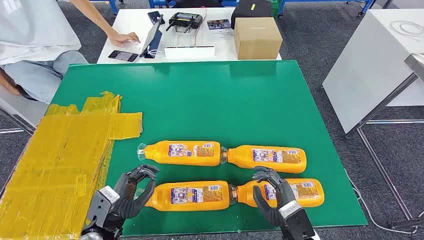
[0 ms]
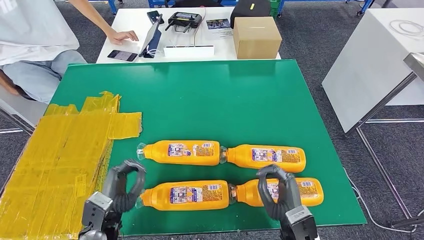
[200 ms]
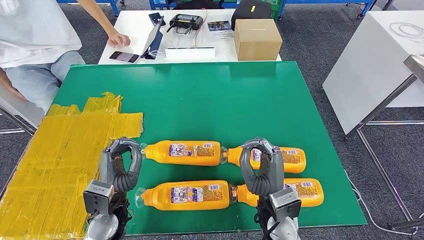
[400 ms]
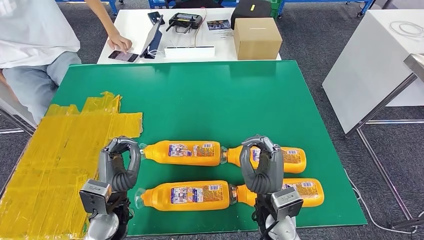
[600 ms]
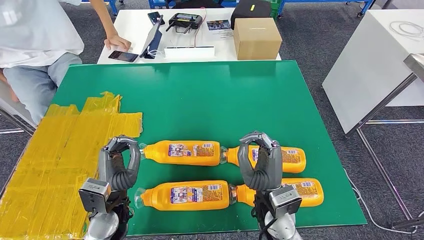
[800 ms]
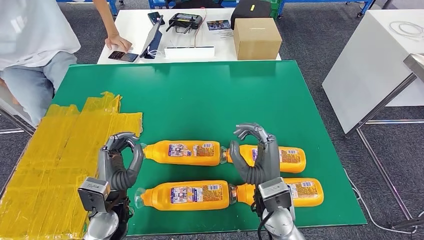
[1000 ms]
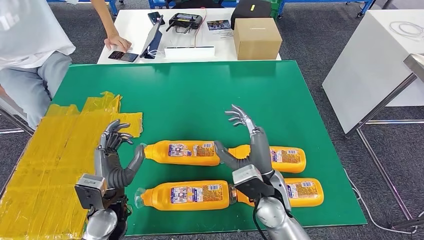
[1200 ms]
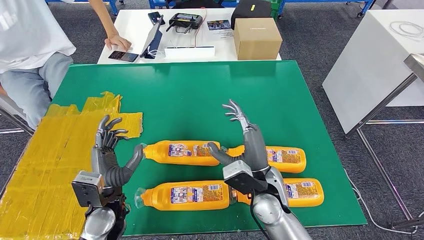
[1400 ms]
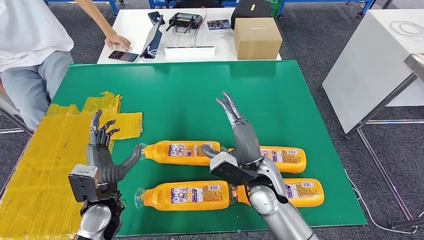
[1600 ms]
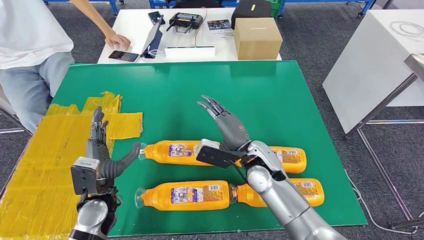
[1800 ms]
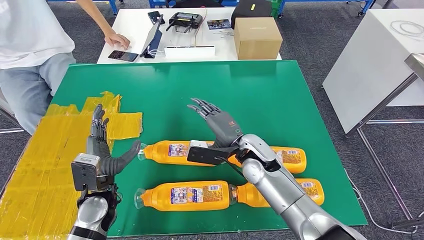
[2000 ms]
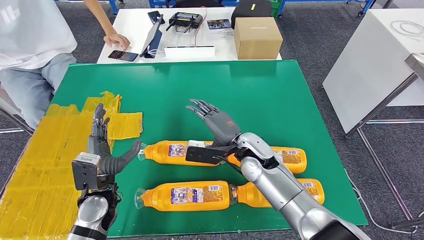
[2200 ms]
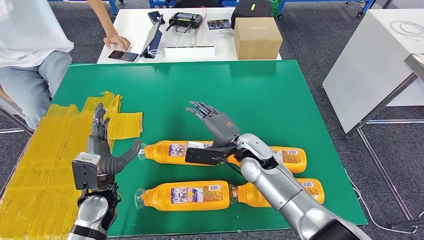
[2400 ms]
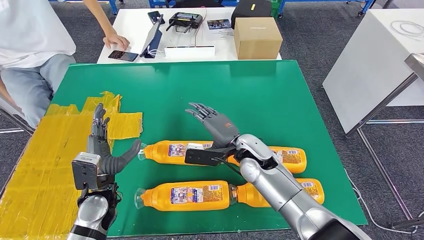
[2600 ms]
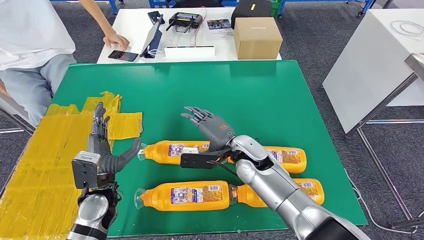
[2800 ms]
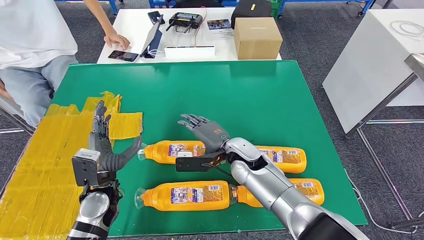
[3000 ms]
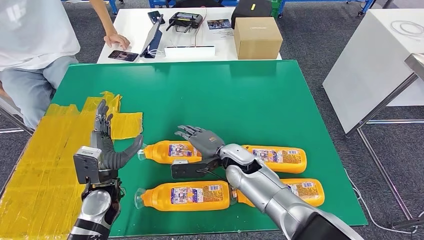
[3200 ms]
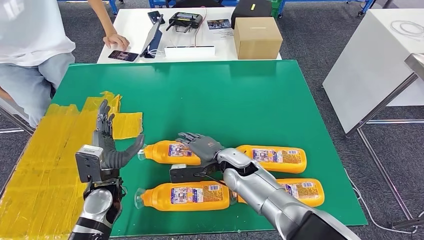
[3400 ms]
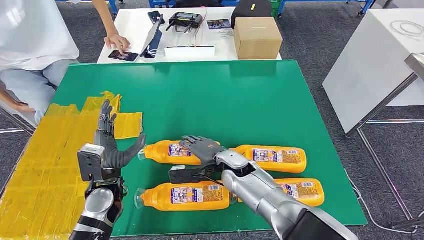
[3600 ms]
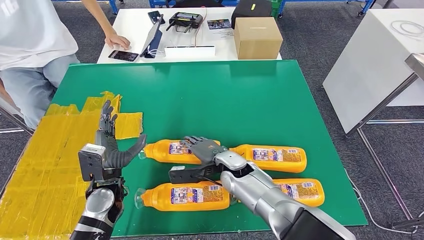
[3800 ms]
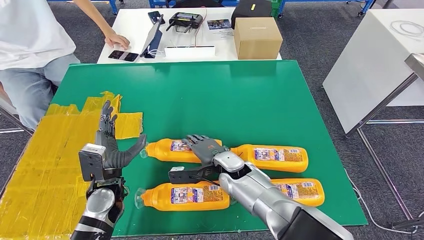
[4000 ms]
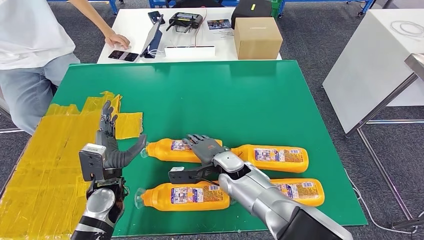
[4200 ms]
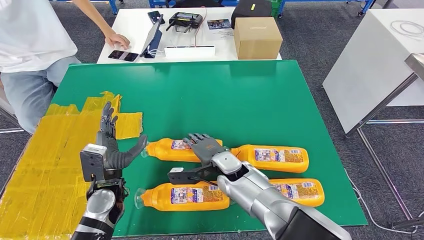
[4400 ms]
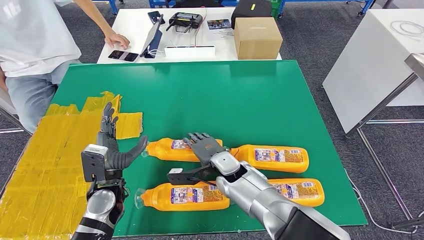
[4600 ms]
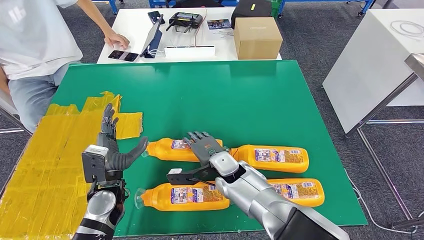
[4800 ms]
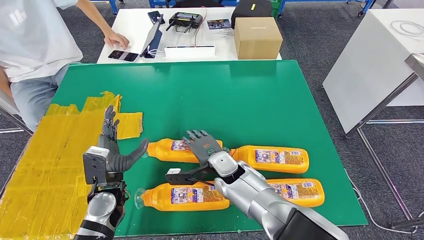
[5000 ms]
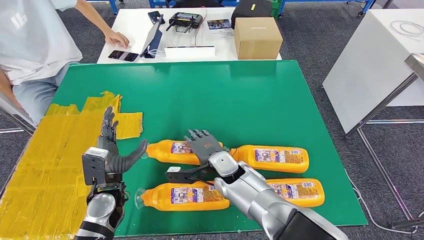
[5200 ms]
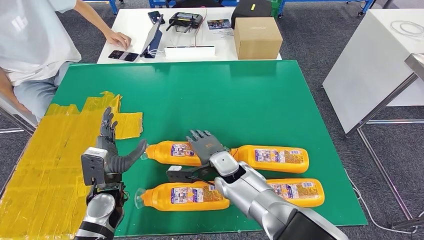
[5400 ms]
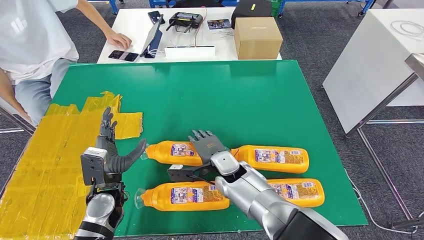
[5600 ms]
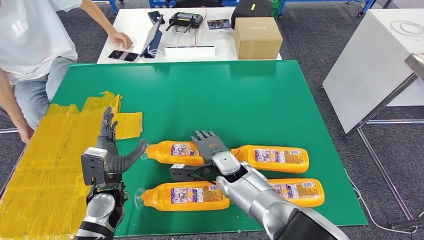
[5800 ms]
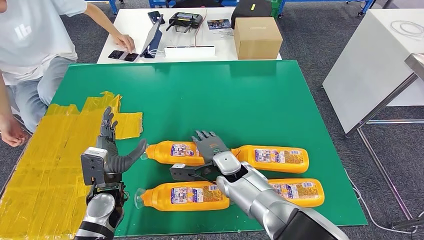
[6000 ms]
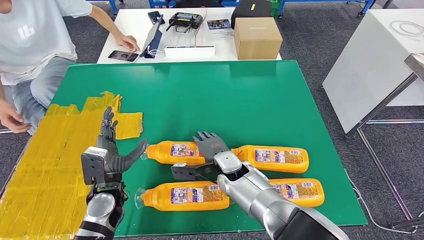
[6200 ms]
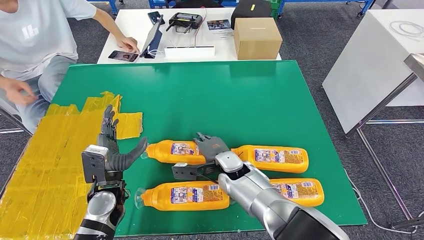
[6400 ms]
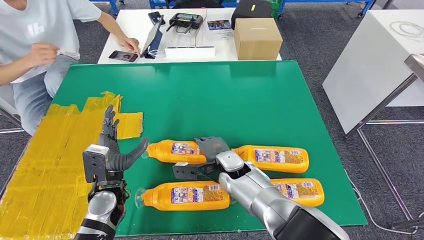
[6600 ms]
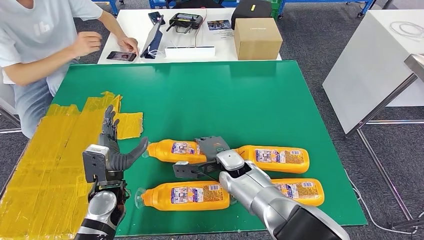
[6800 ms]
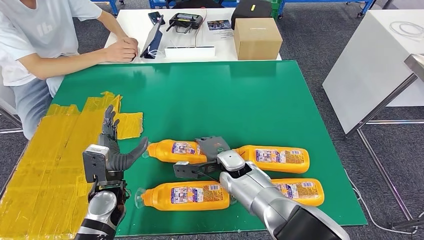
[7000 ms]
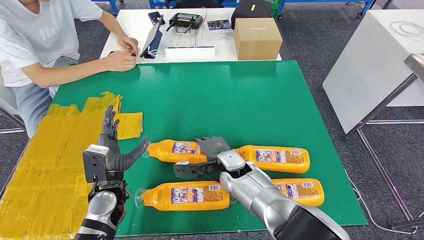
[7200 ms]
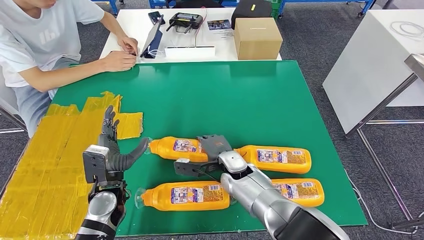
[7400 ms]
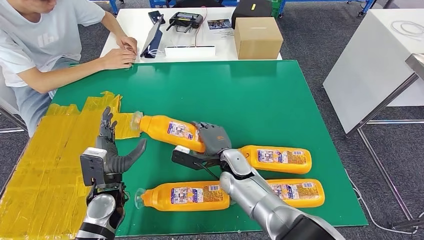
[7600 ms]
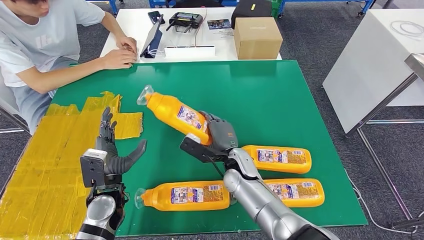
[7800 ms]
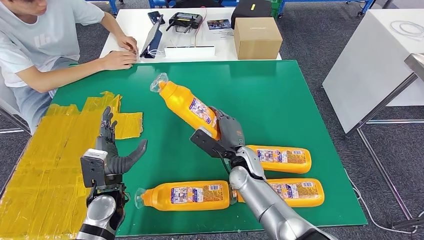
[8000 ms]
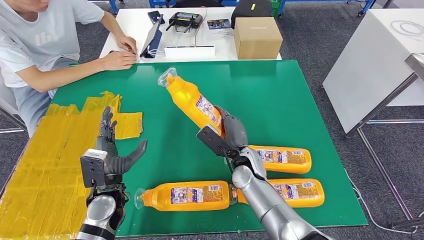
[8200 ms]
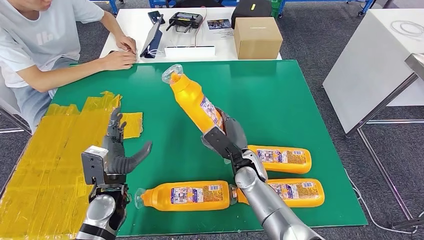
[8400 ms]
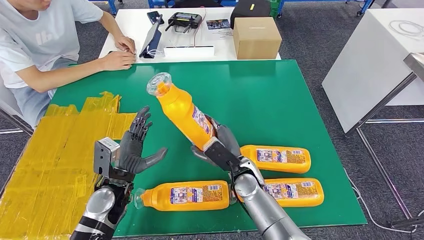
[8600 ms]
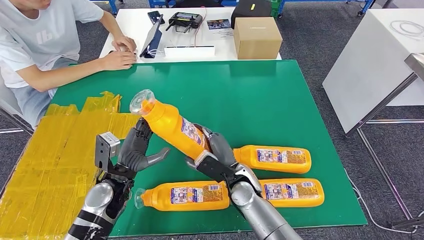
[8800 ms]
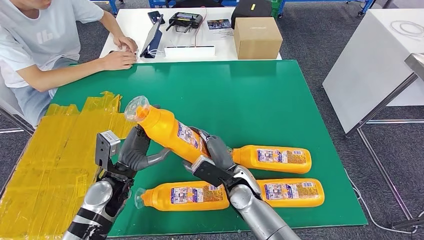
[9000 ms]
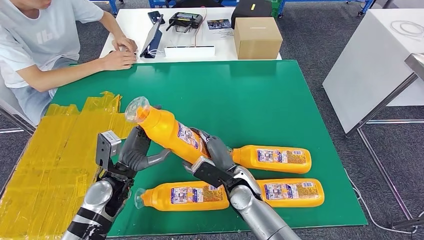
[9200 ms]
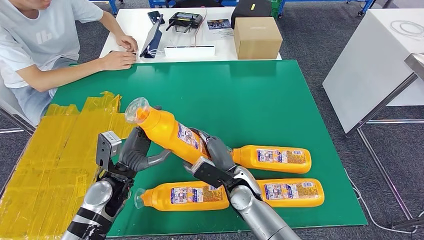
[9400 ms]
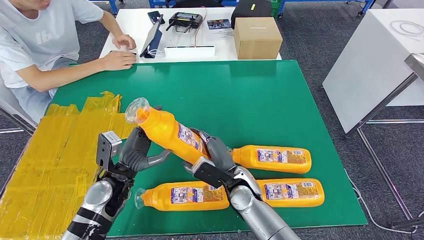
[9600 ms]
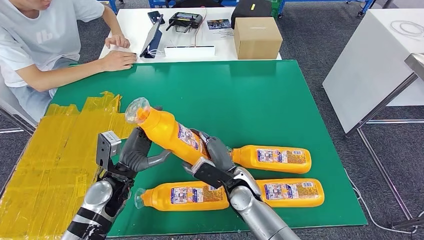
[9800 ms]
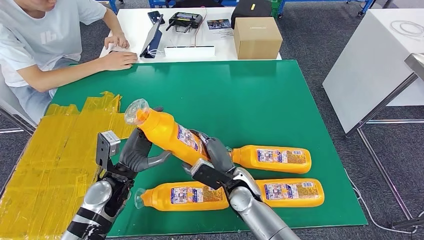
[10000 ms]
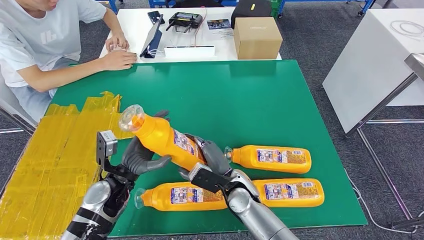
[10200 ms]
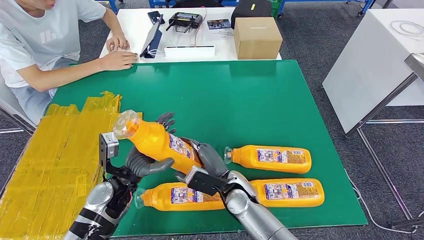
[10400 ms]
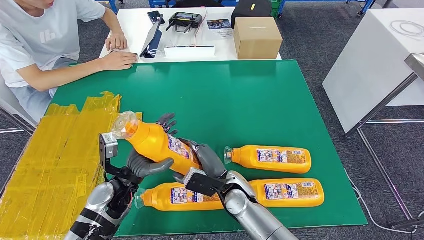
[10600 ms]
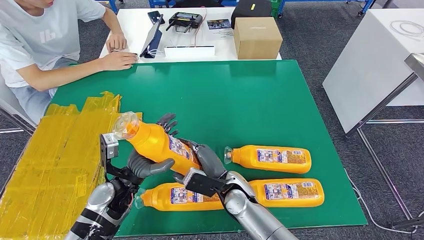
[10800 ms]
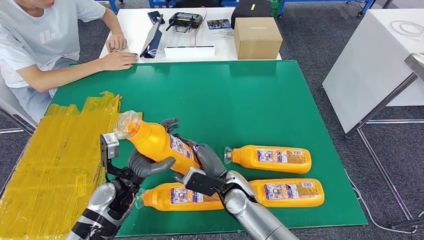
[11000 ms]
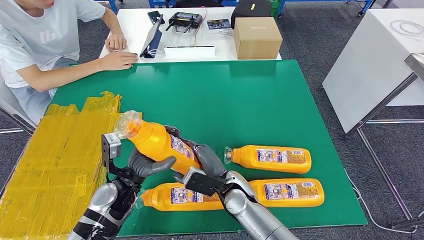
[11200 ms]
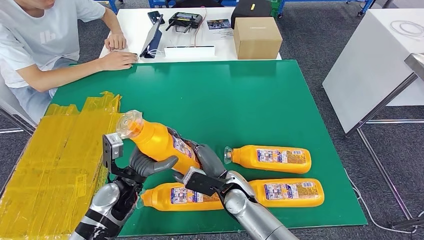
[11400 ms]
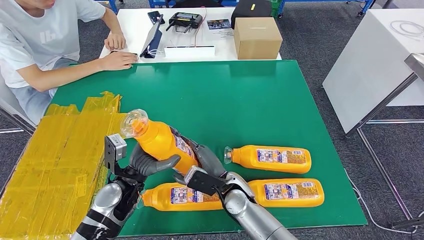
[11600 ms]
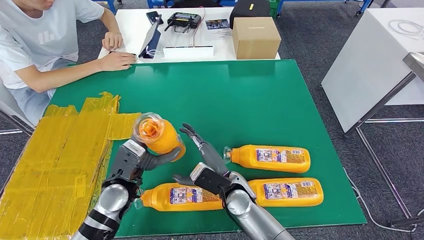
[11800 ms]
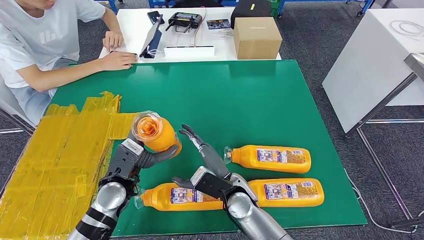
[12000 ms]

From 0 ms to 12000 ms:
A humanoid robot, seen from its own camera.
Step, from 0 ms to 8200 ms: Take the fast-moving consumer goods bottle from the table.
From 1600 ms to 3000 ms: The right hand goes about 10 cm forward.
From 3000 ms to 4400 ms: The right hand is displaced downward by about 5 cm.
From 4400 ms to 6000 ms: There are only small adjustments of the hands.
From 7600 ms to 9000 ms: The right hand shifts about 5 cm backward.
From 9000 ms to 10400 ms: The hands make only small movements.

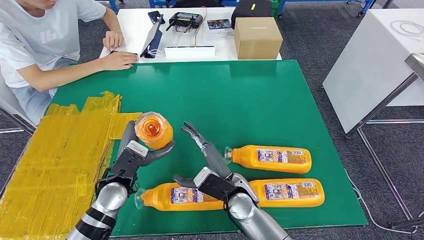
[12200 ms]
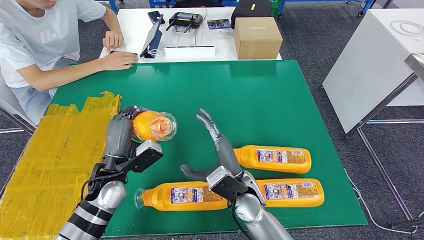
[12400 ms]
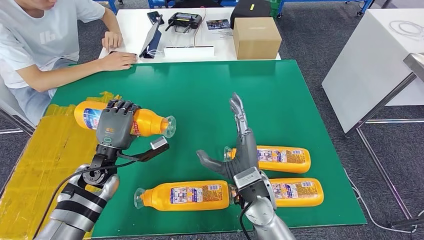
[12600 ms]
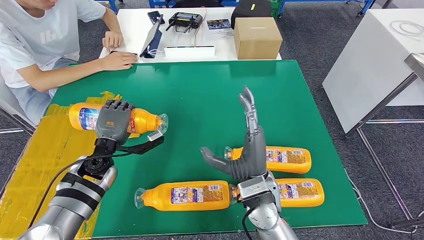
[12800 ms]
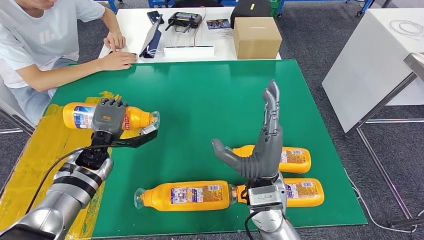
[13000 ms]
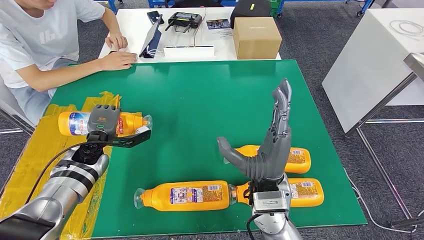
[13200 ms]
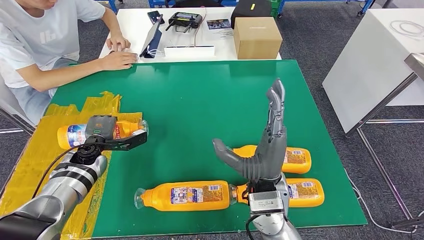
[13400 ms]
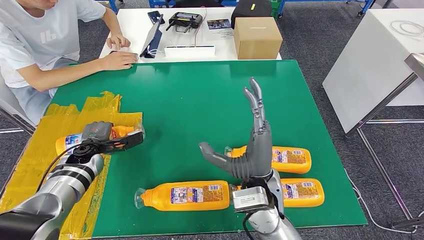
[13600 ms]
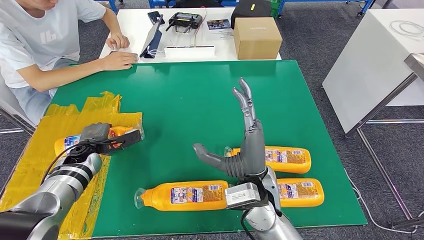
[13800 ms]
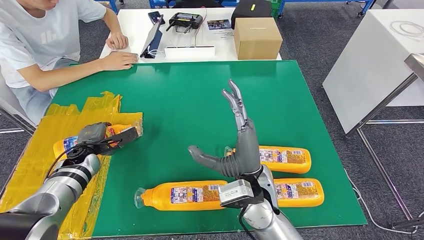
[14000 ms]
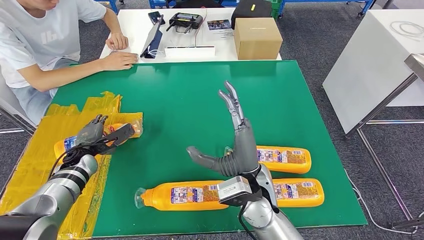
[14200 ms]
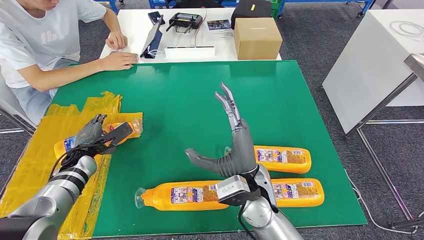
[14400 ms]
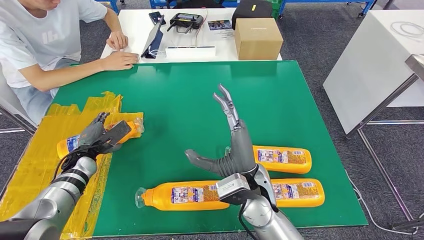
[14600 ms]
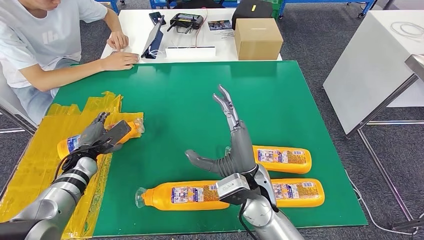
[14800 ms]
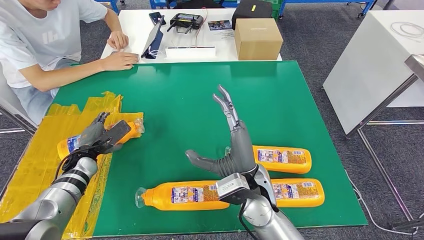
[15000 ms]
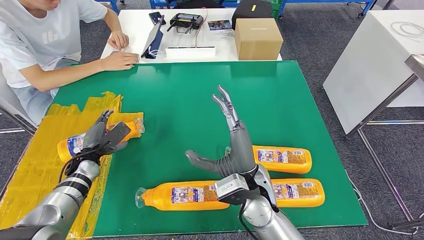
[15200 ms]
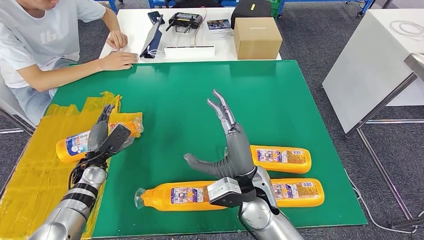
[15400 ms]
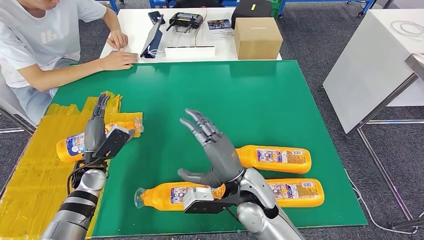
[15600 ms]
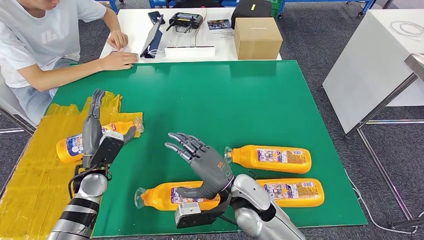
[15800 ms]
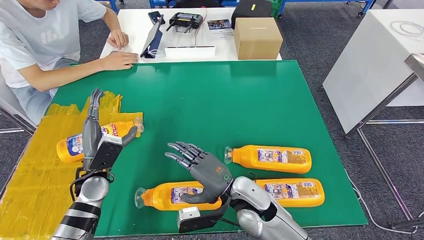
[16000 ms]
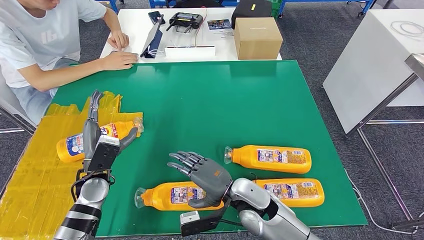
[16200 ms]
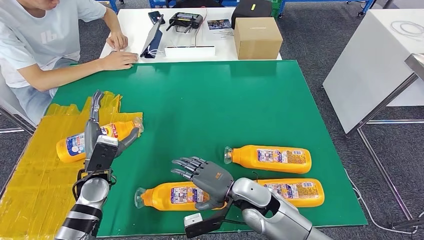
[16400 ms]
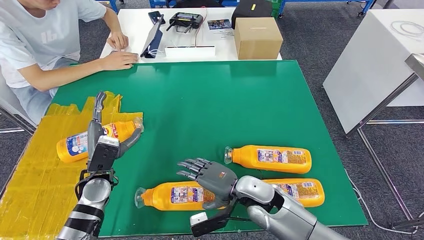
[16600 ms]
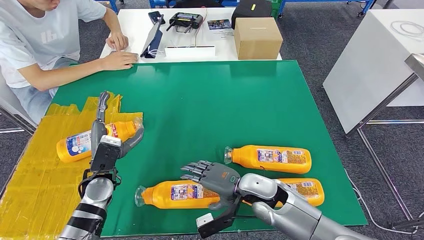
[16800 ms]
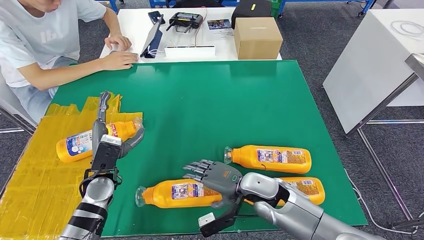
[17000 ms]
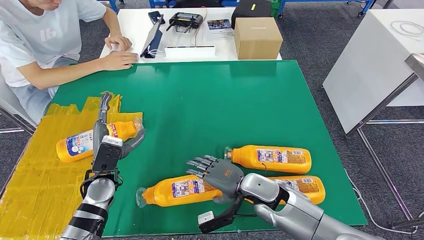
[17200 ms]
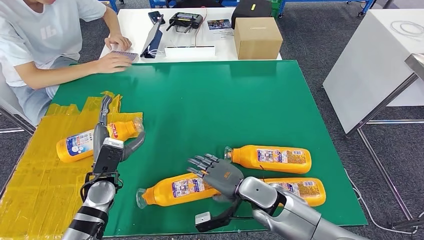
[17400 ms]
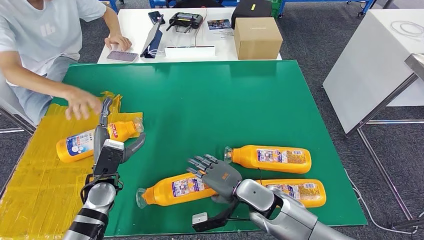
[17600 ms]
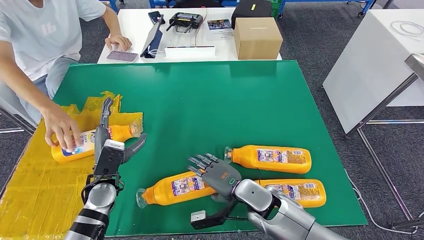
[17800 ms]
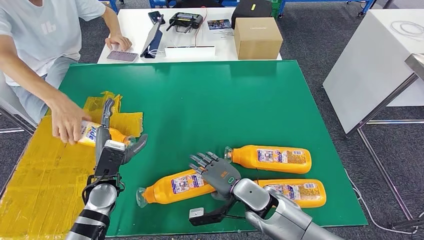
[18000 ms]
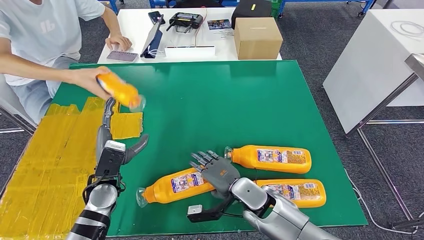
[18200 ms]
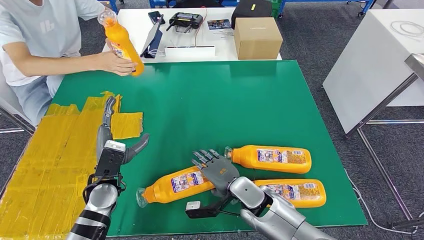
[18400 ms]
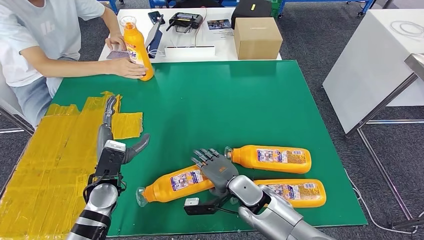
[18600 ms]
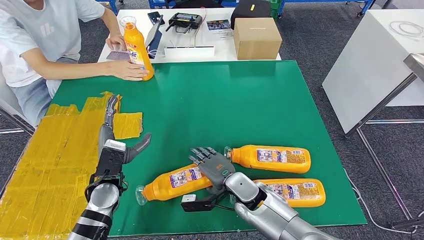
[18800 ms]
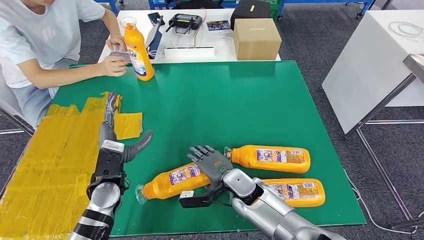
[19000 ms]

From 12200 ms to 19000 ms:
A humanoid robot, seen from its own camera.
Step, from 12200 ms to 15200 ms: Flip the fast-moving consumer goods bottle to the front side.
From 12200 ms to 13600 ms: The right hand travels upward by approximately 10 cm, while the left hand goes roughly 15 cm to the left and forward.
From 15000 ms to 16200 ms: The left hand goes about 10 cm to the right, backward and upward. The right hand moves downward, about 5 cm.
From 17600 ms to 19000 ms: The right hand shifts by roughly 5 cm.
